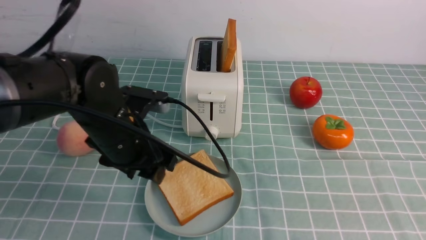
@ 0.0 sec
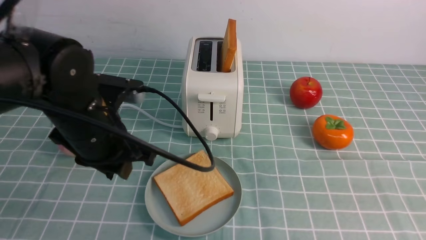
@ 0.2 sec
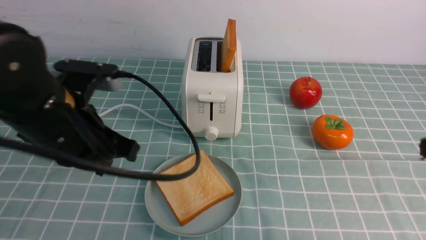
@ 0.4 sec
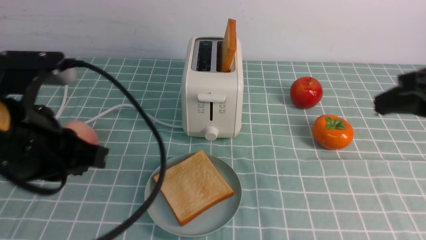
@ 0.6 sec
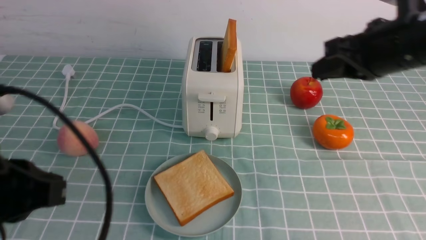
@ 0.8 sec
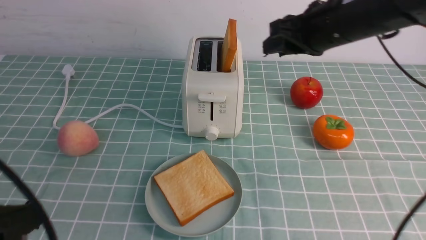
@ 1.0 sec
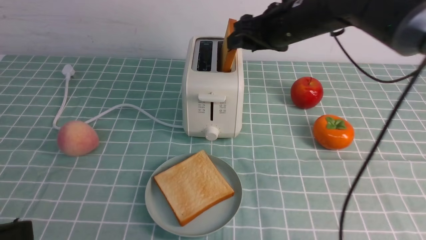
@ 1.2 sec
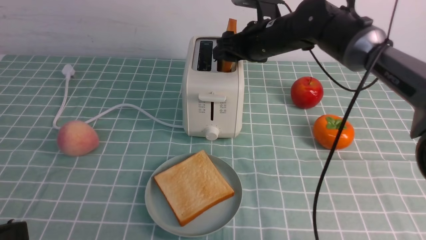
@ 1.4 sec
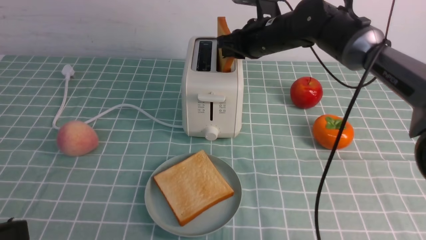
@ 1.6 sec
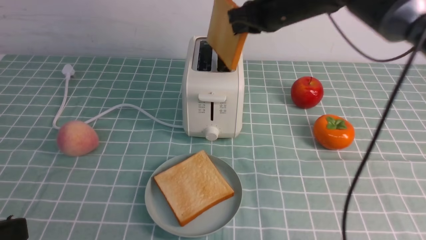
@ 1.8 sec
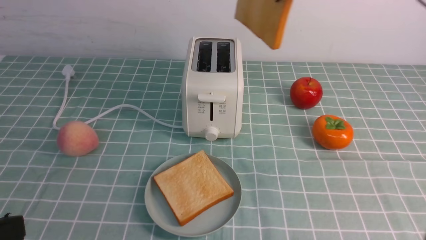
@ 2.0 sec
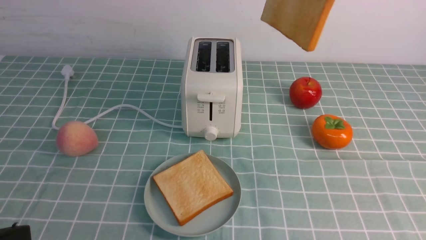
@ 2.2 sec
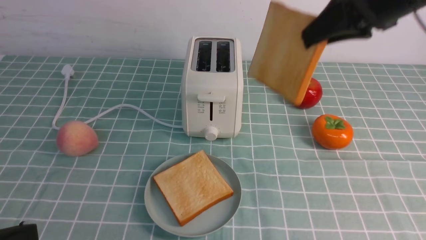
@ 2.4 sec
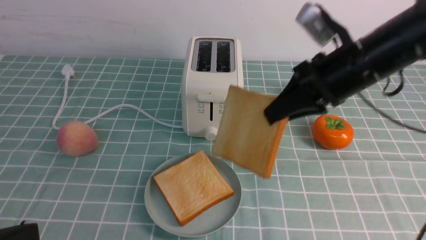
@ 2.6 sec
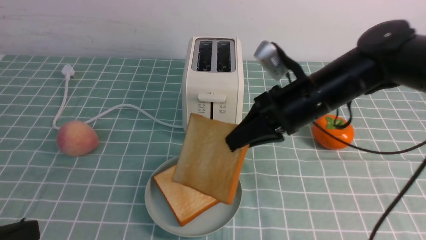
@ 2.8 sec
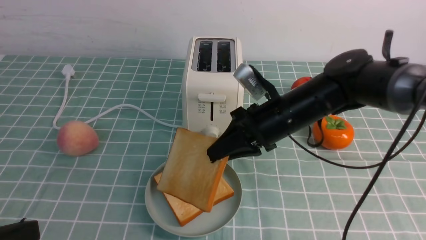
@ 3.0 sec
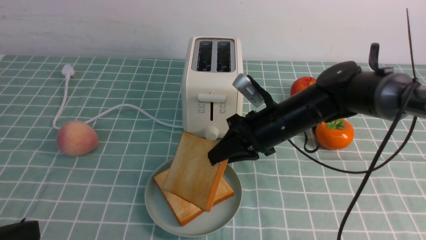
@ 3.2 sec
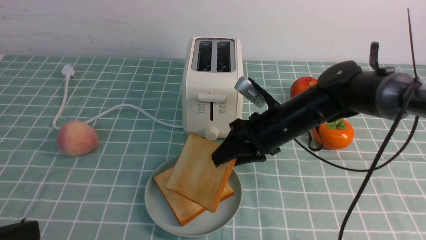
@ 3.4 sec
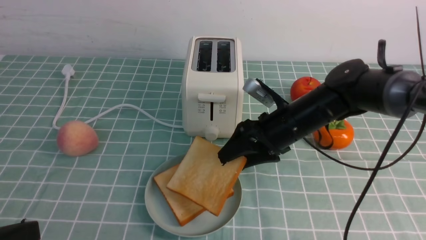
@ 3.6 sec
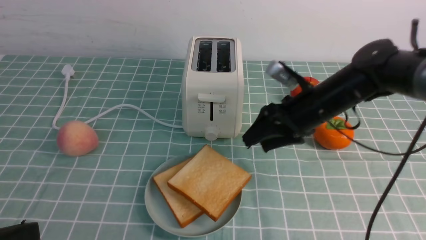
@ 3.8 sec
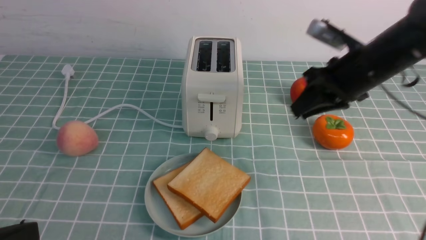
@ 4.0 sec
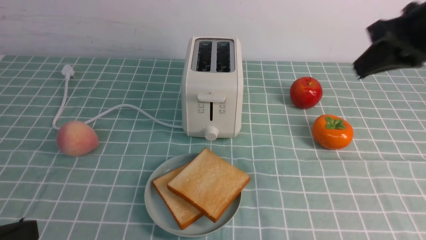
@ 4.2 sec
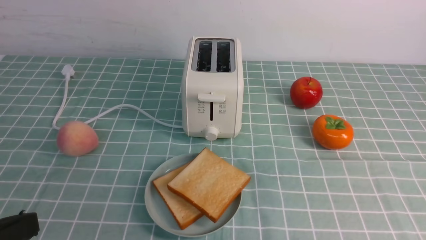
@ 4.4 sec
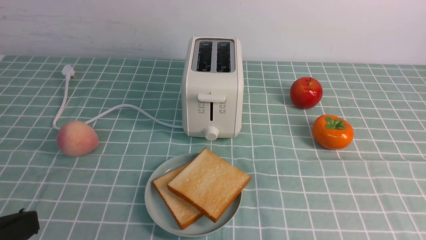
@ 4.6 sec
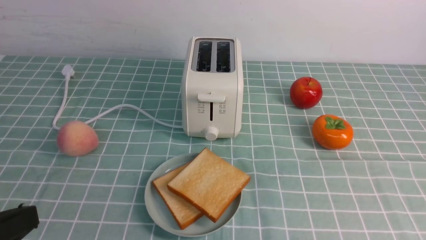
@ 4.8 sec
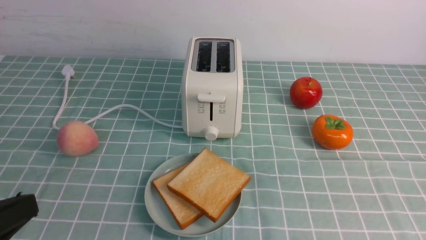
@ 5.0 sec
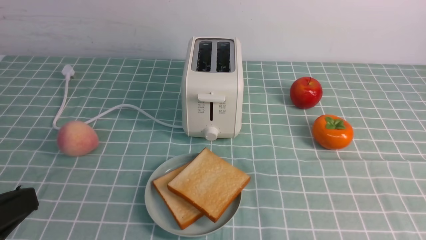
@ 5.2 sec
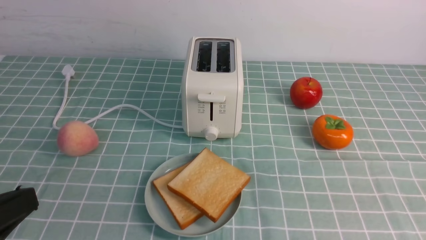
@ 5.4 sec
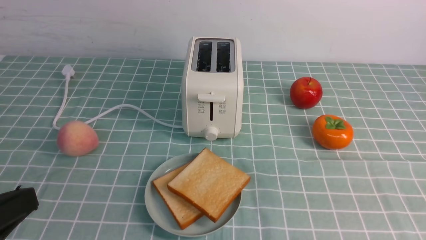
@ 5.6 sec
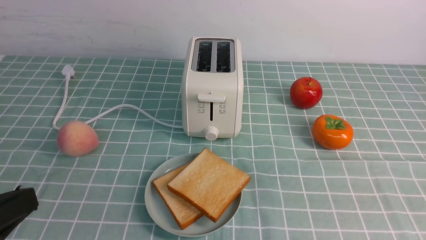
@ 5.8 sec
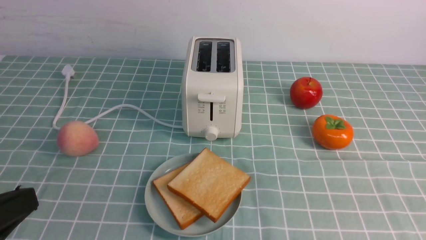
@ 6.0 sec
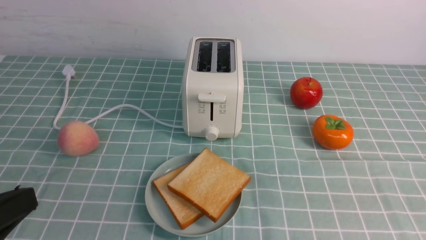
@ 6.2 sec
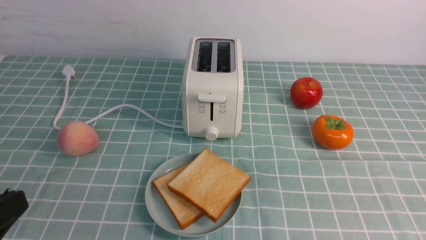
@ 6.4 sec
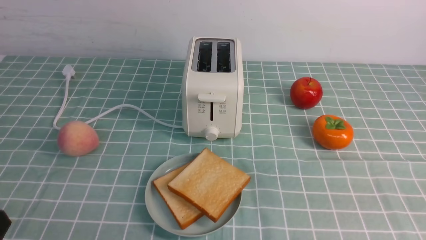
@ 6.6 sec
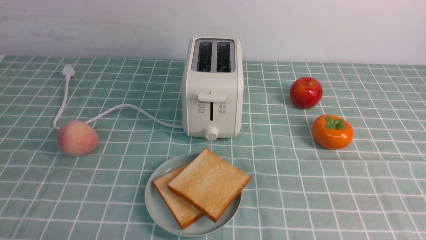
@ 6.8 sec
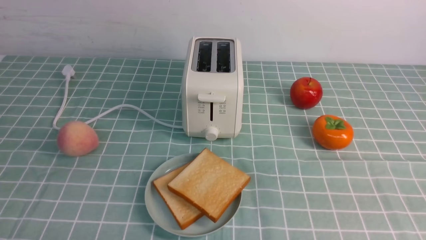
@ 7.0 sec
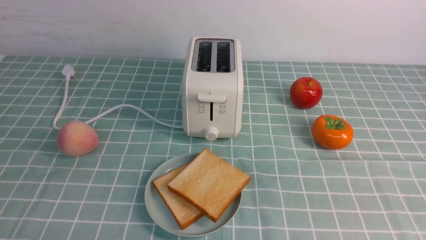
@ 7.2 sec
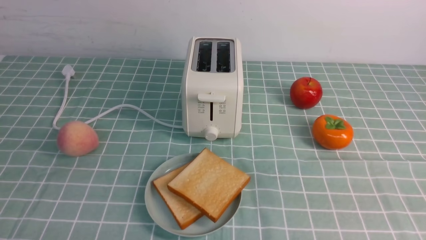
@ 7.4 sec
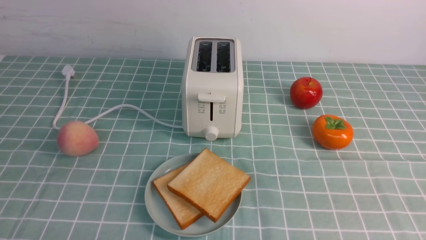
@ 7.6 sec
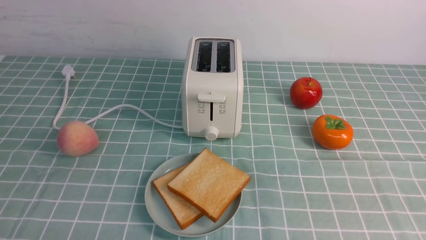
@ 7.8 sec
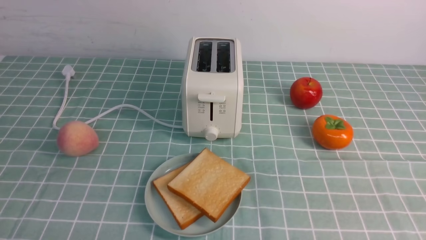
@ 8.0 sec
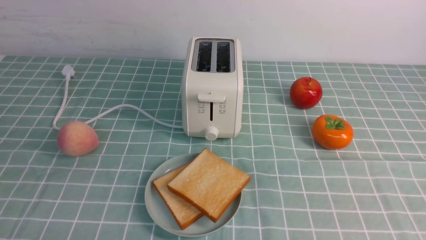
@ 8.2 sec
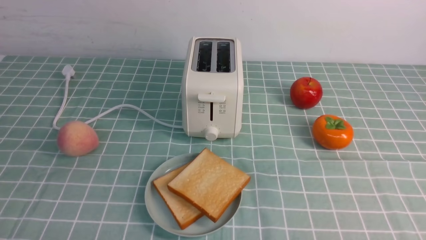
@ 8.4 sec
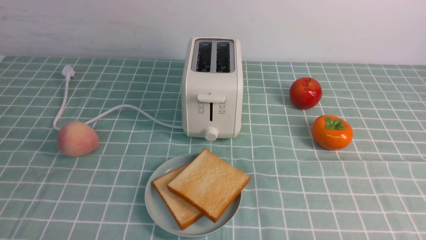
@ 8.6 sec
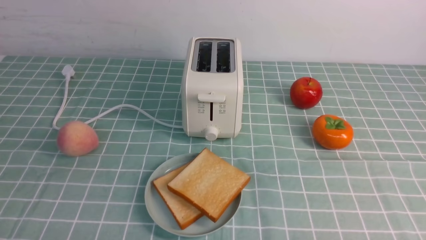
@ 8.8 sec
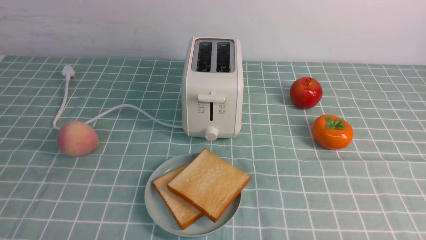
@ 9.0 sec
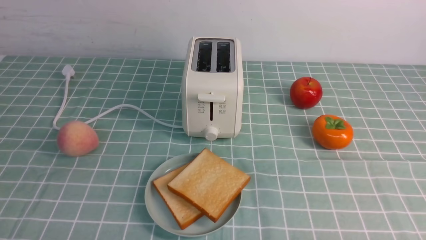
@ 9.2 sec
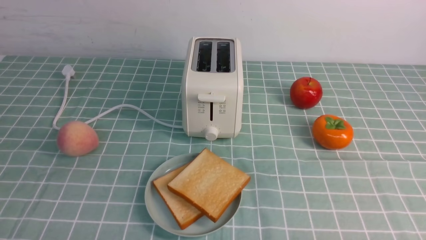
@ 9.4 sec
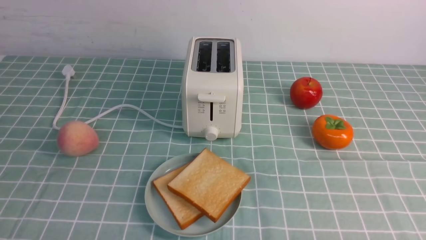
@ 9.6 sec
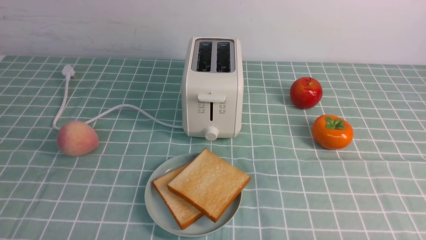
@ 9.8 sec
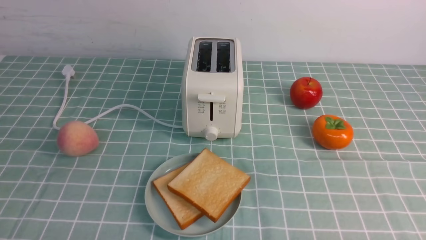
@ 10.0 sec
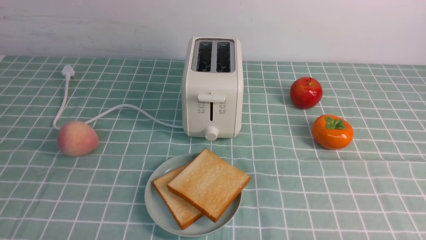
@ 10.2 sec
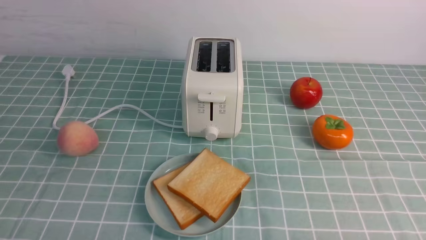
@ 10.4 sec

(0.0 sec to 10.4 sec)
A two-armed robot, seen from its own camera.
Task of the whole recording: take toasted bread from bread machine on blue coffee table place on plate.
Step, 0.2 sec - 2.2 sec: use the right arm to take out a slice of bread.
Step, 2.4 sec - 4.2 sec: use the right arm to put a slice of bread into the plate.
0.0 sec - 1.4 sec: The left gripper goes some 25 cm backward and to the left, and closes its fingers; the right gripper goes approximately 40 cm forward and to the left, and opens.
1.4 sec - 3.0 sec: The right gripper goes some 10 cm backward, travels upward and back again, roughly 15 cm each way, and closes.
3.0 sec - 4.4 sec: The right gripper is displaced upward, to the right and backward by about 25 cm, and opens, then closes once more.
6.0 sec - 7.4 sec: The left gripper shifts some 15 cm downward.
9.0 sec - 10.4 sec: The two grippers keep their place.
